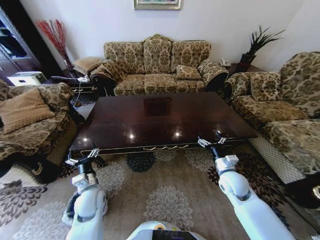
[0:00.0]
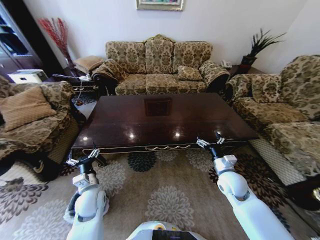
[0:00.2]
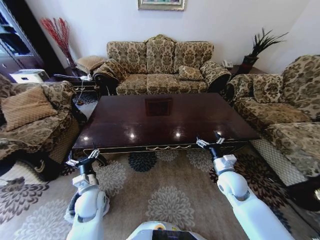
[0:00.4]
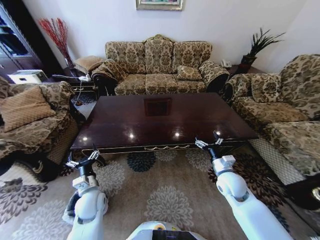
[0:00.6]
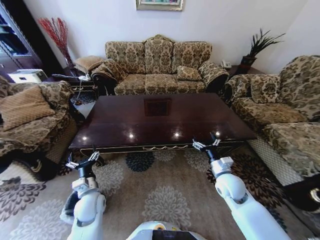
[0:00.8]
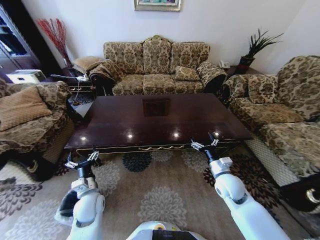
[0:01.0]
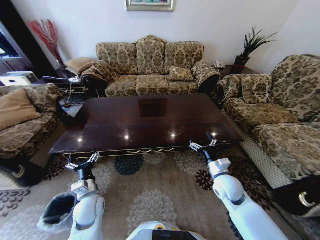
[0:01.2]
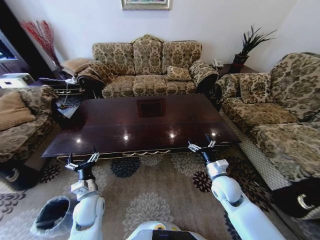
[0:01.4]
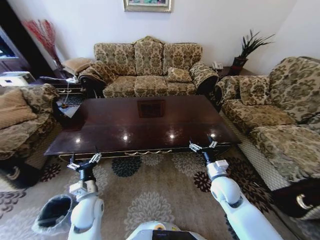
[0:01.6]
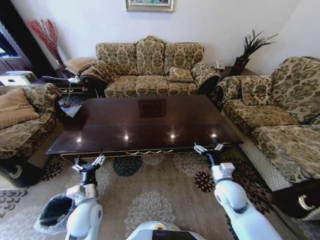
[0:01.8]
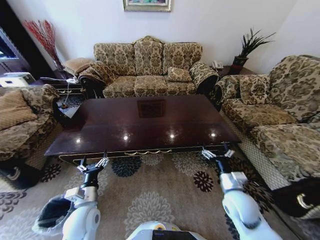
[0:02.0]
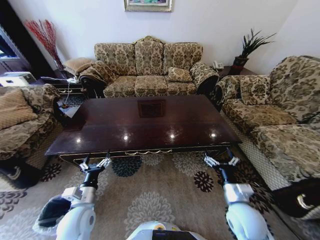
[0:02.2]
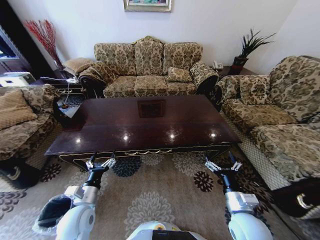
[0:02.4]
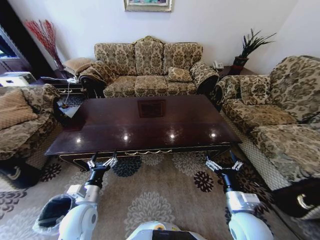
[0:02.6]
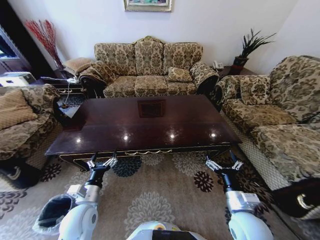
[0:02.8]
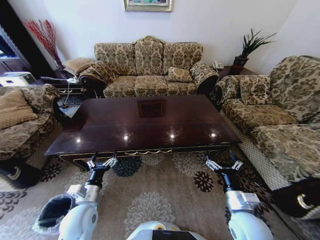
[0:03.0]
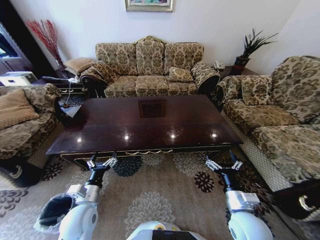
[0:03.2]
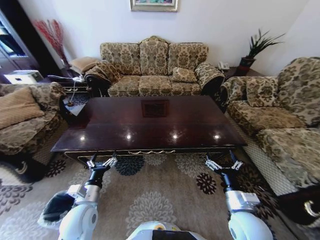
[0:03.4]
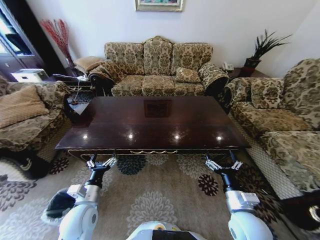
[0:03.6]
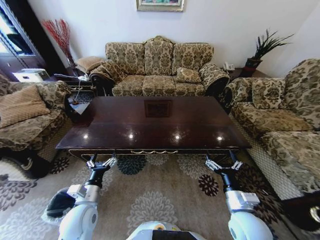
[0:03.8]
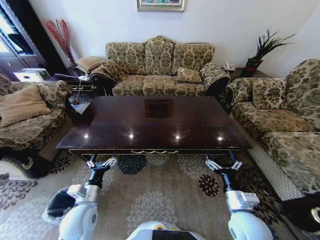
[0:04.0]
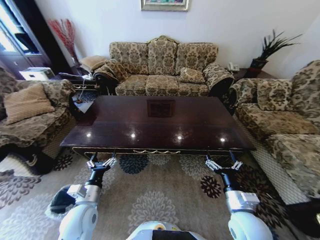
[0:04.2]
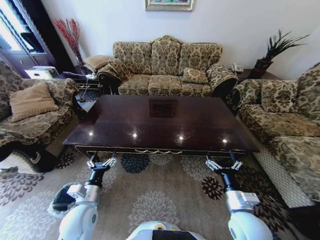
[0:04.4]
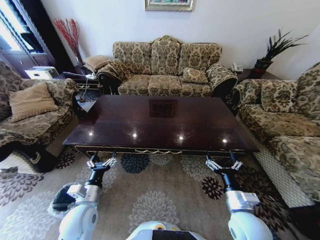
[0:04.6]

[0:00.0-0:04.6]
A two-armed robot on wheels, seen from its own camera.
Task of the whole recording: Move to the front of the table and place the trash on the table into the trash bin.
0:01.6 to 0:03.0: The right gripper shifts about 10 cm backward.

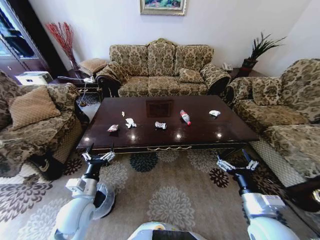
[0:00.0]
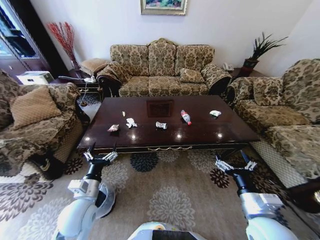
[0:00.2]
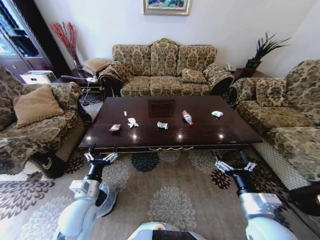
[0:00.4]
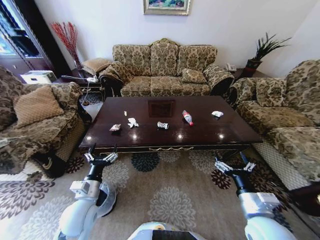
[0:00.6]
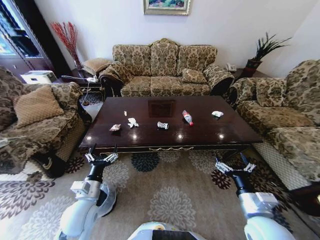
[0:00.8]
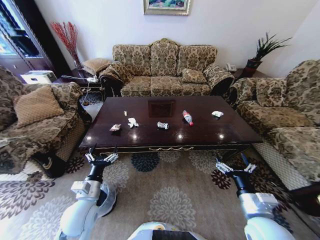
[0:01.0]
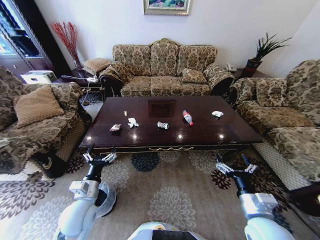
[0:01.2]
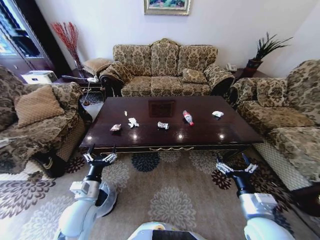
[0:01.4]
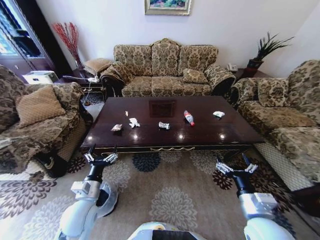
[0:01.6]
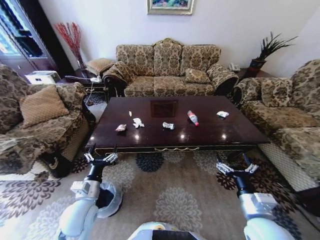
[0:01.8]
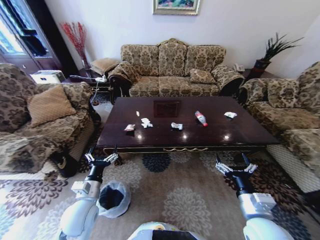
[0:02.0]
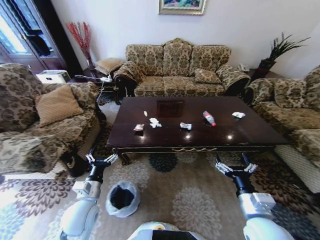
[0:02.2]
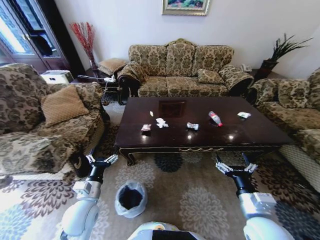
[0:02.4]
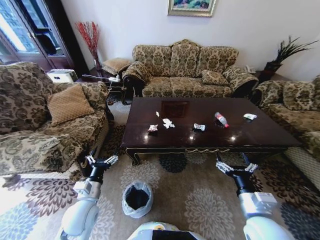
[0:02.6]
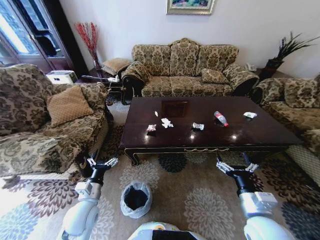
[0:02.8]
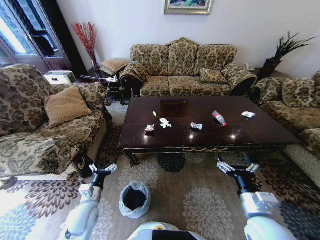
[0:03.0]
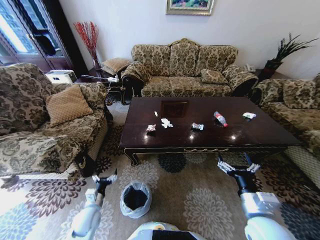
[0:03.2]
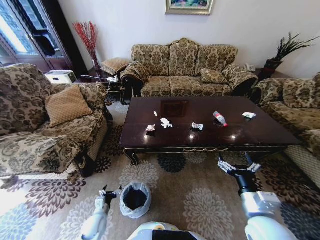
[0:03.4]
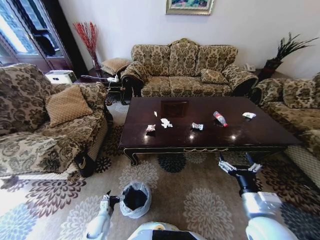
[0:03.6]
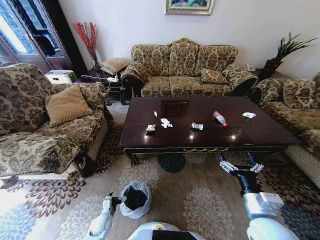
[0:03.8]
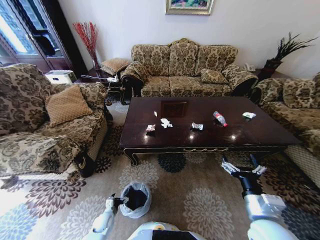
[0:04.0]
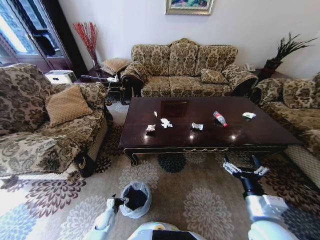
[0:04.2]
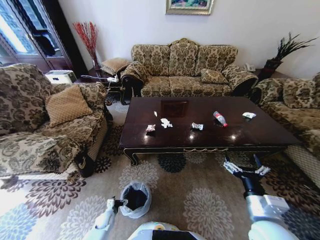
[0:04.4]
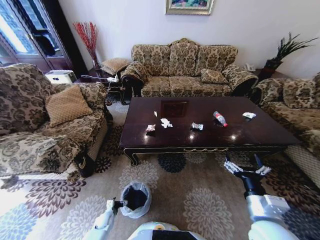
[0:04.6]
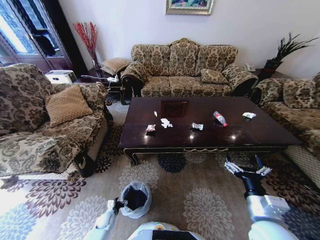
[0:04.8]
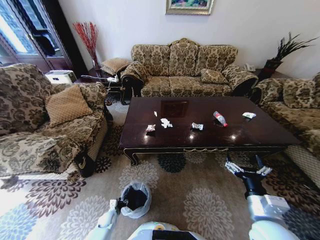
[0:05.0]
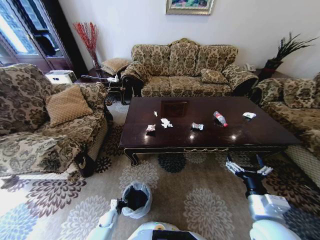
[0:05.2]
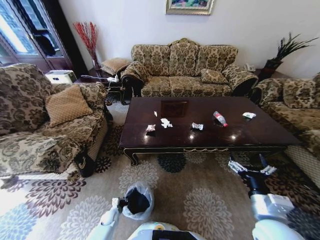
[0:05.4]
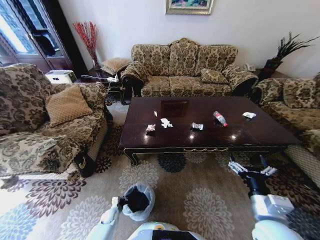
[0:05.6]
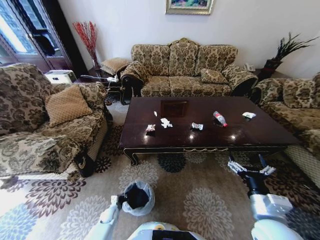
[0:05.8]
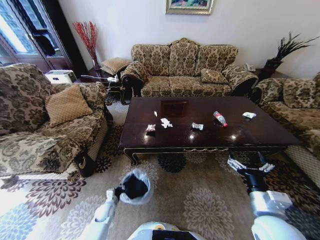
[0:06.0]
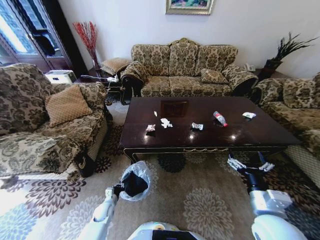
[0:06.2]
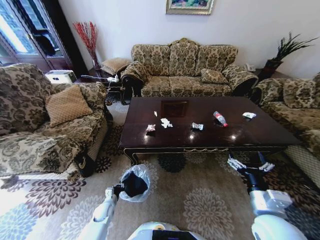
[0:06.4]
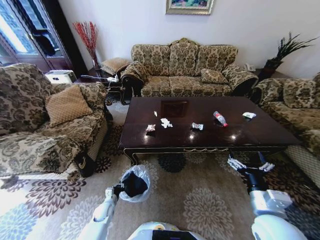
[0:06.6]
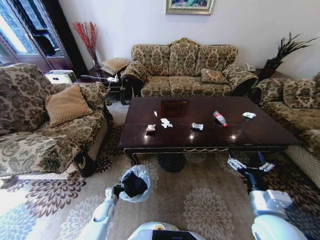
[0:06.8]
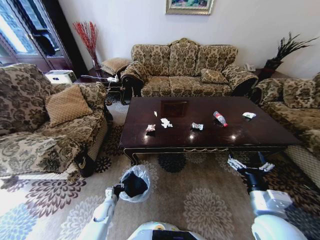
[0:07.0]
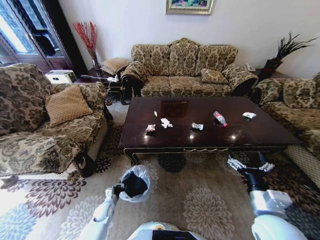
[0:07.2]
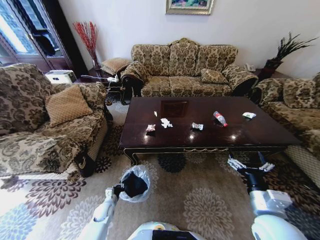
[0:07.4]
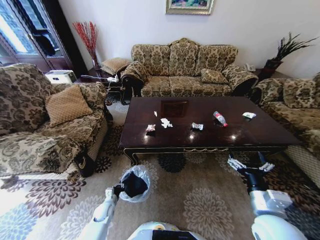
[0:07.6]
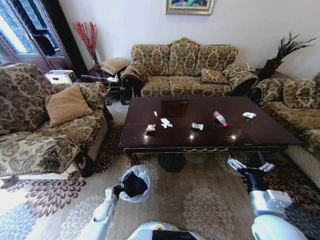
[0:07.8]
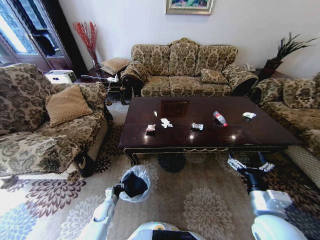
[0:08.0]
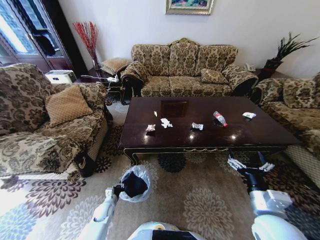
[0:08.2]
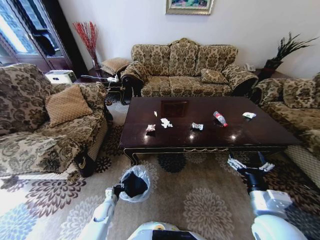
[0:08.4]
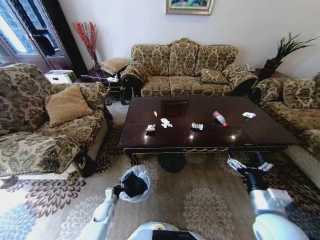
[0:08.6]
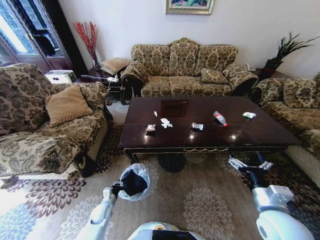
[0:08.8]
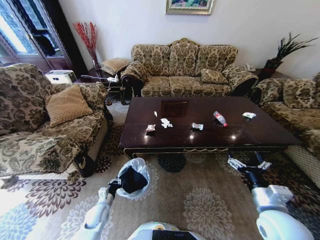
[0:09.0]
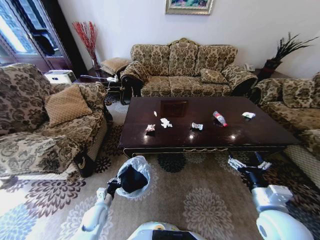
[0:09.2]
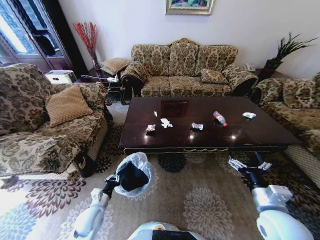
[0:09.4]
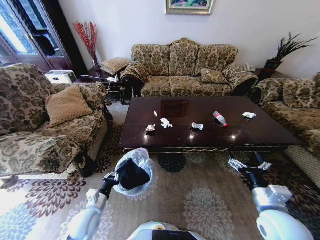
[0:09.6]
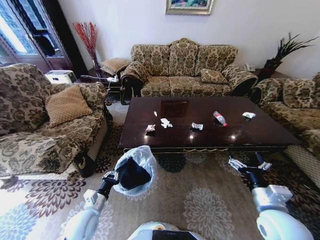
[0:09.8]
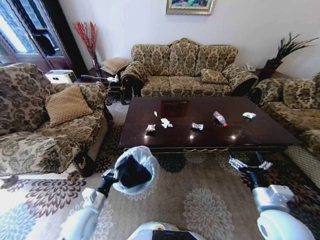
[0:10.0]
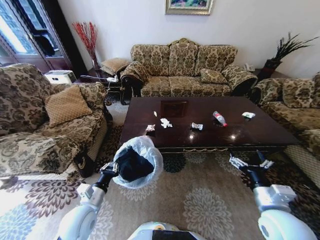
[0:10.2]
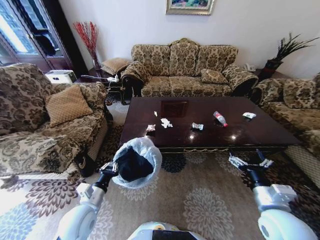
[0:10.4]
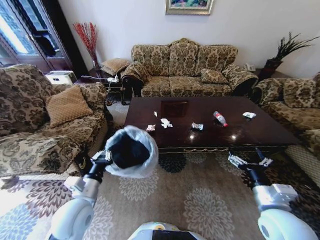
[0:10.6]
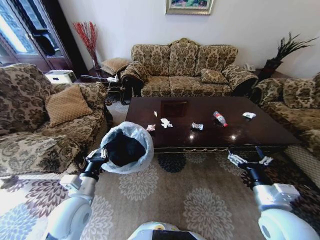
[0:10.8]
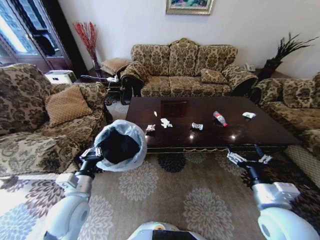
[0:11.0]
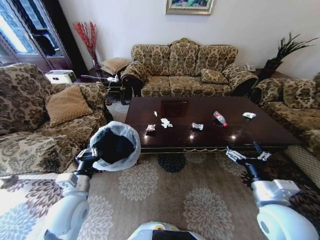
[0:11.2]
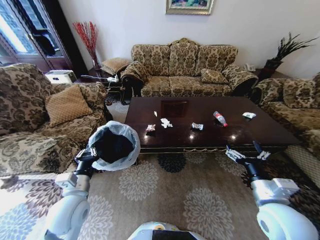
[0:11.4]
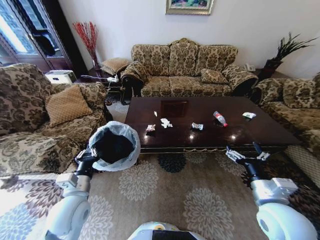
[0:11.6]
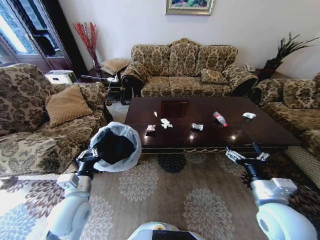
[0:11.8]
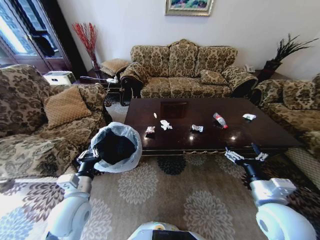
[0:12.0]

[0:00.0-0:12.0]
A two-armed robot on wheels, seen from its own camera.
Task of the whole recording: Move to the front of the table and place the trash on the table into the trash bin.
0:01.6 to 0:03.0: The left gripper is displaced downward by some 5 cm.
0:03.0 to 0:04.4: The left gripper goes roughly 25 cm downward.
0:04.4 to 0:06.0: The left gripper moves upward, roughly 5 cm, and closes its fingers.
0:06.0 to 0:07.6: The two grippers keep their place.
0:07.6 to 0:09.0: The left gripper shifts about 5 cm upward.
0:09.0 to 0:10.4: The left gripper travels upward by about 20 cm.
0:10.4 to 0:12.0: The left gripper heads upward, covering approximately 5 cm.

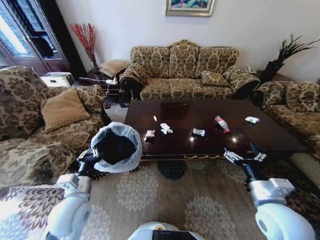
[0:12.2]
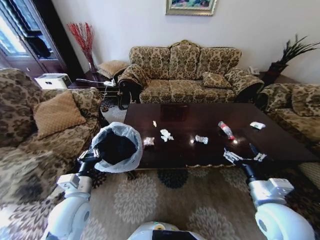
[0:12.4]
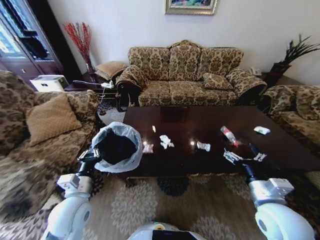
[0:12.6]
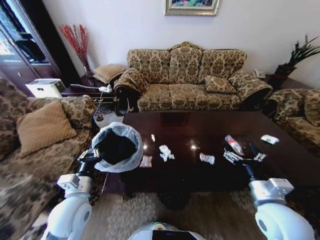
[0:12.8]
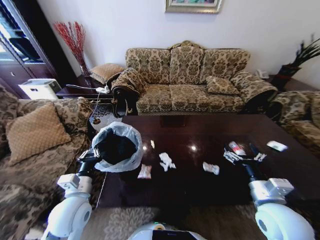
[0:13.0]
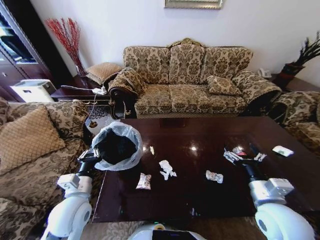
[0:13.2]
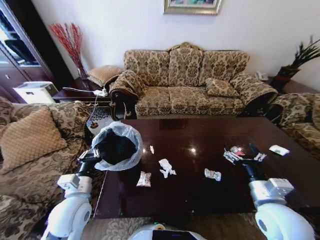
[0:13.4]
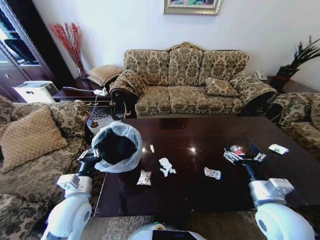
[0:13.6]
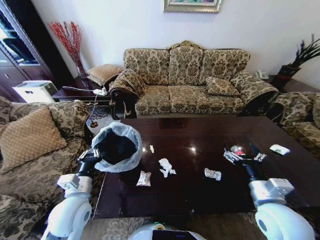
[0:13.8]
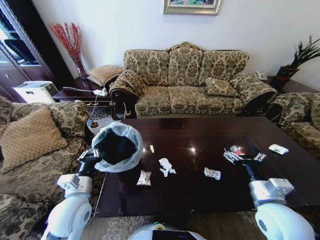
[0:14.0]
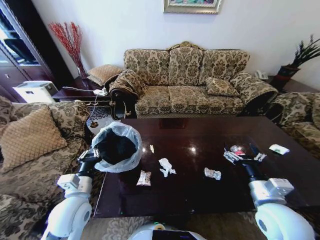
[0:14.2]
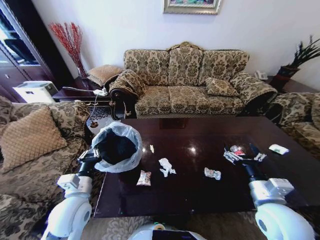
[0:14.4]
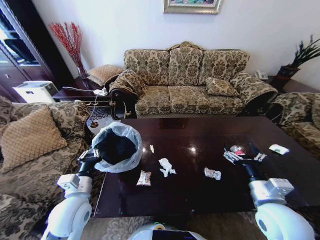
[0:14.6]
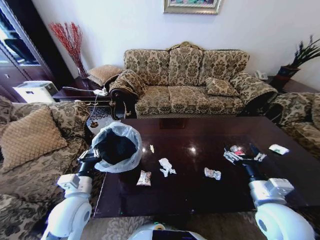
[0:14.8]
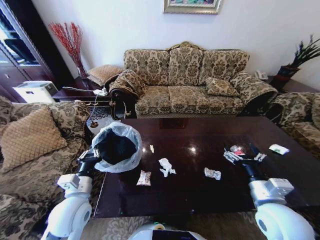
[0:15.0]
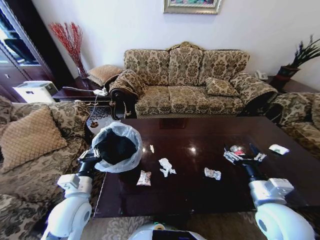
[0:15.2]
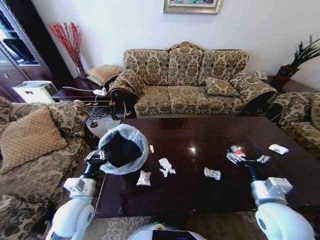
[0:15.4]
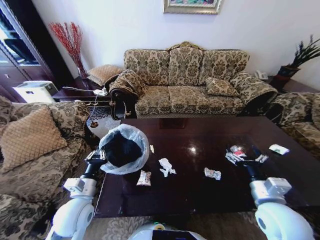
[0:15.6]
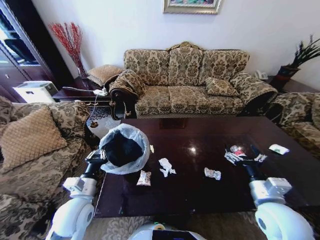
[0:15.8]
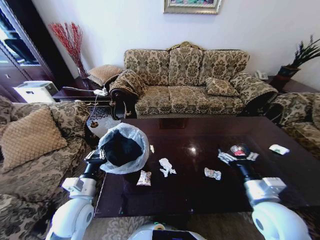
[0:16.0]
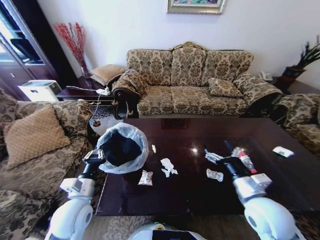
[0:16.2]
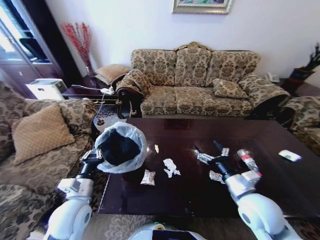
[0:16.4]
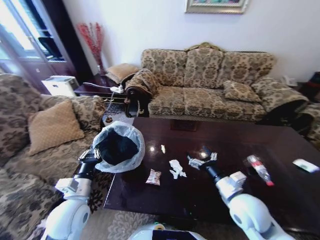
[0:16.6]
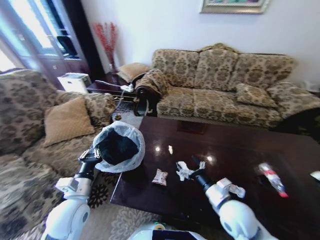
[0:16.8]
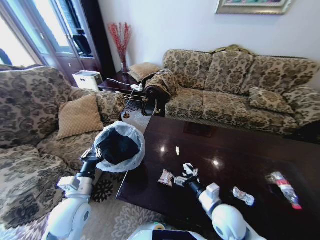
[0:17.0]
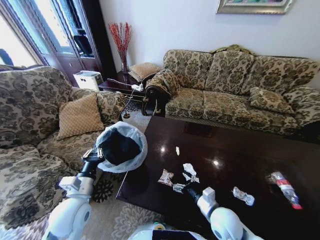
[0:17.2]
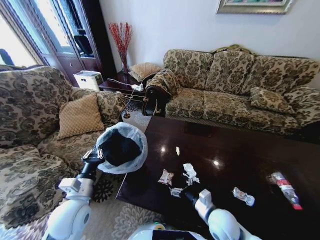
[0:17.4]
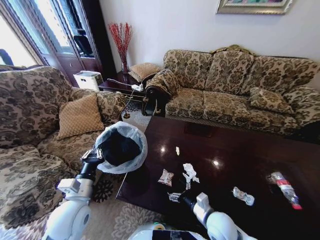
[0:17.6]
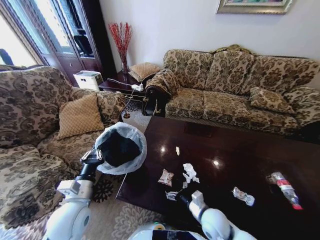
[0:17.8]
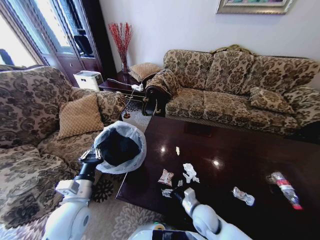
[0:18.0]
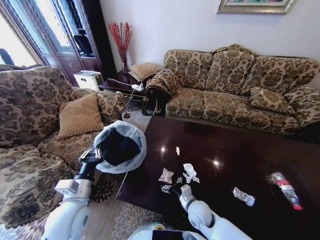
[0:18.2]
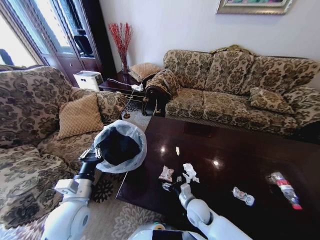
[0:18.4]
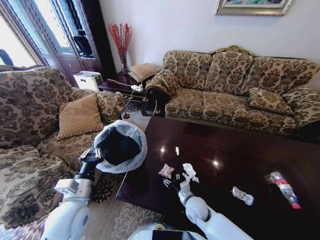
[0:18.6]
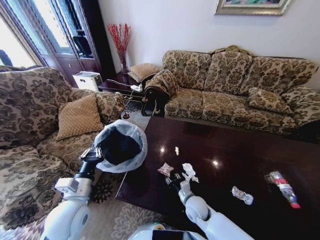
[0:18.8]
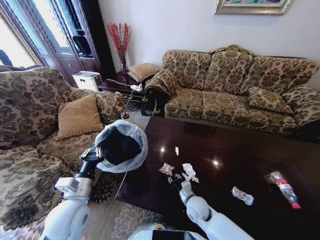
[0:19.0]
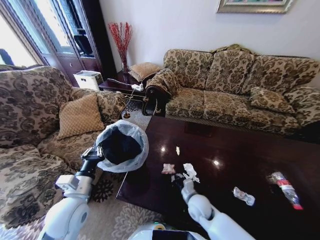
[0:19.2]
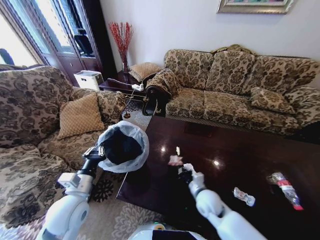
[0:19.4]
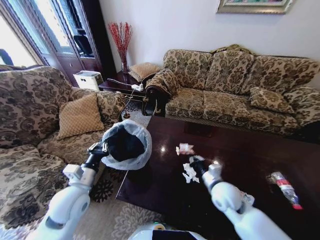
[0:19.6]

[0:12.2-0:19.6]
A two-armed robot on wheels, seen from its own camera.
Task of the whole recording: Move to the front of the table and place the trash on the table into the trash bin.
0:13.6 to 0:15.2: Both grippers stay about where they are.
0:15.2 to 0:16.6: The right gripper changes place by some 5 cm.
0:16.6 to 0:18.2: The right gripper shifts some 20 cm downward and to the left.
0:18.2 to 0:19.6: The right gripper is displaced upward and to the right by about 15 cm, and closes its fingers.
